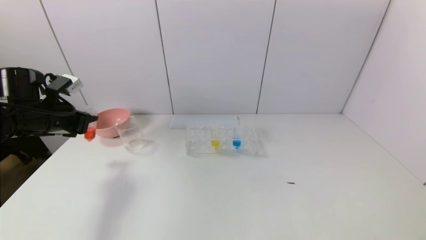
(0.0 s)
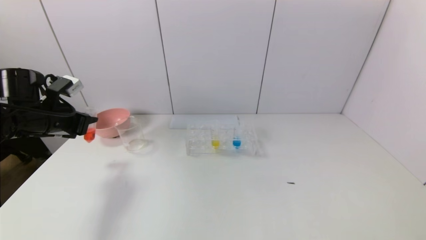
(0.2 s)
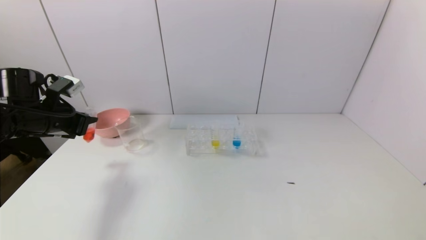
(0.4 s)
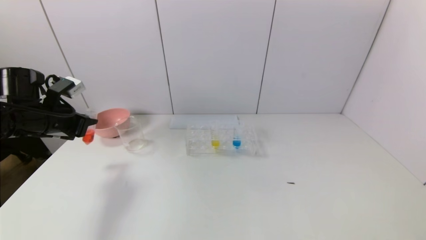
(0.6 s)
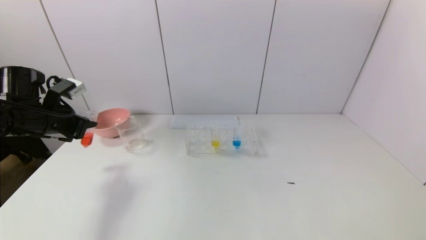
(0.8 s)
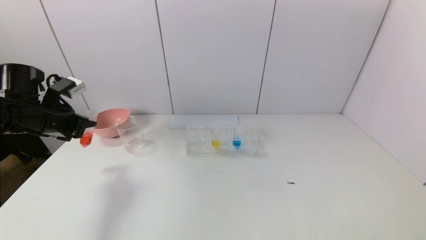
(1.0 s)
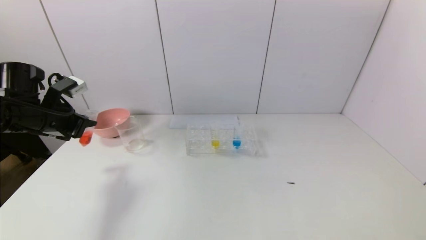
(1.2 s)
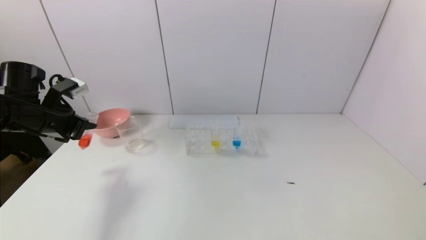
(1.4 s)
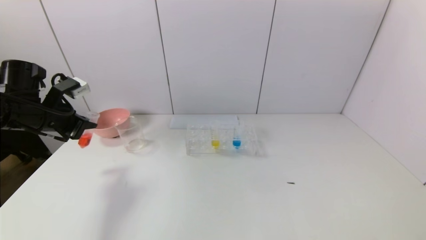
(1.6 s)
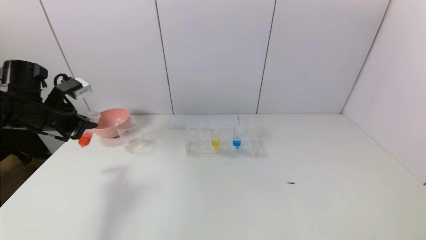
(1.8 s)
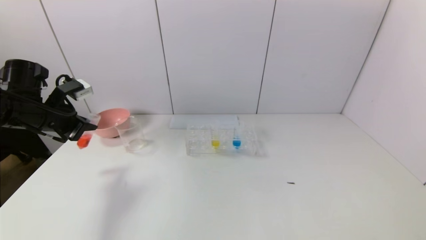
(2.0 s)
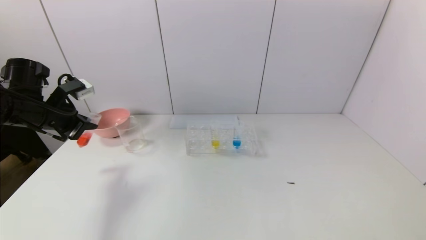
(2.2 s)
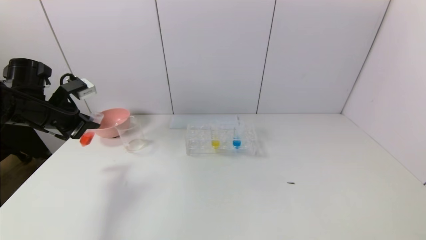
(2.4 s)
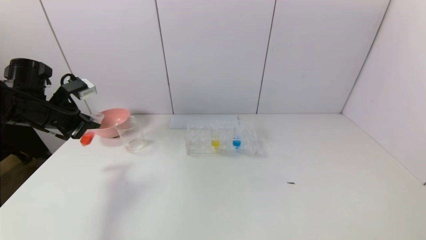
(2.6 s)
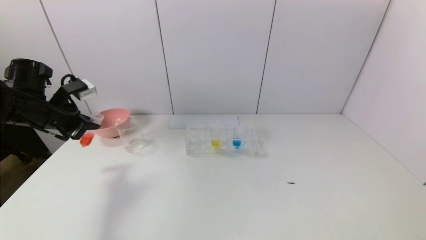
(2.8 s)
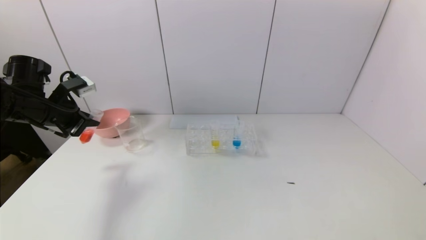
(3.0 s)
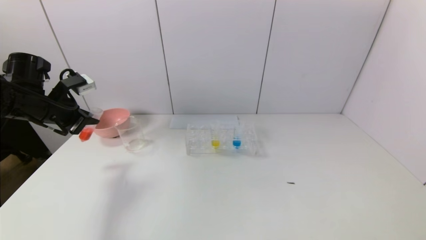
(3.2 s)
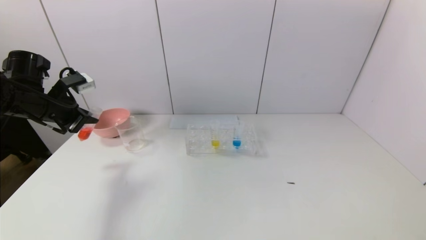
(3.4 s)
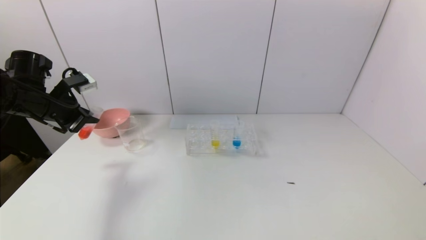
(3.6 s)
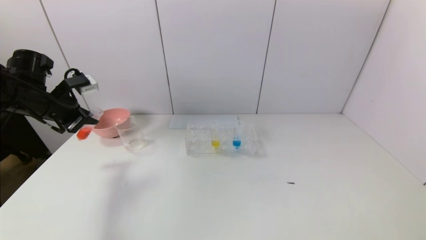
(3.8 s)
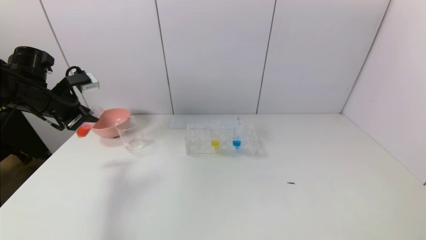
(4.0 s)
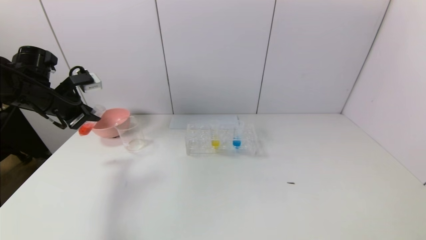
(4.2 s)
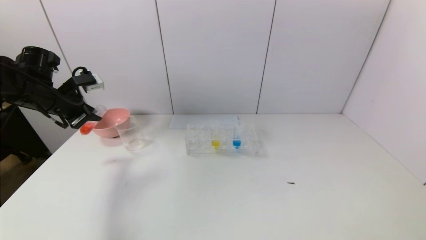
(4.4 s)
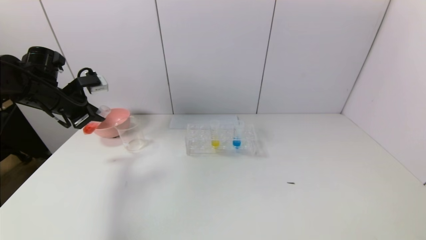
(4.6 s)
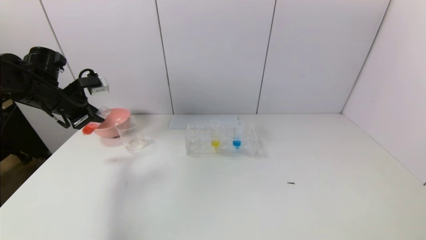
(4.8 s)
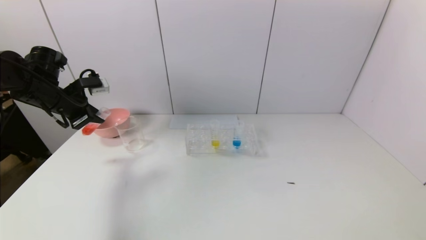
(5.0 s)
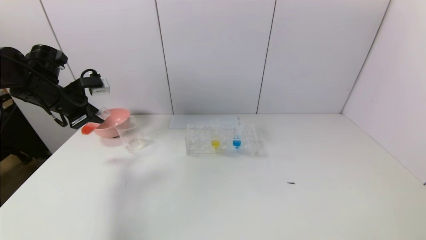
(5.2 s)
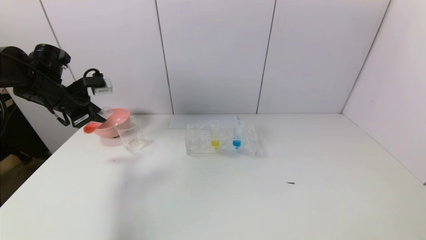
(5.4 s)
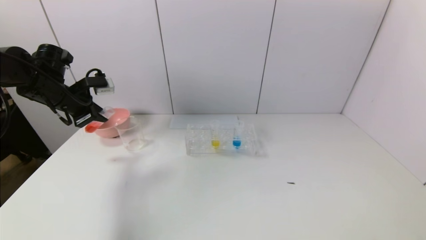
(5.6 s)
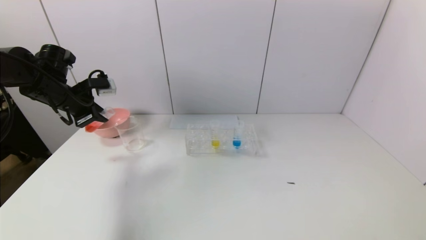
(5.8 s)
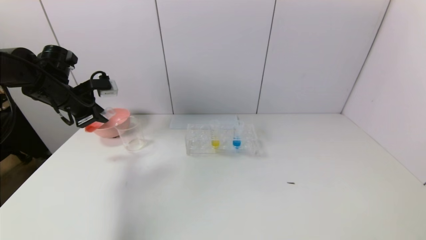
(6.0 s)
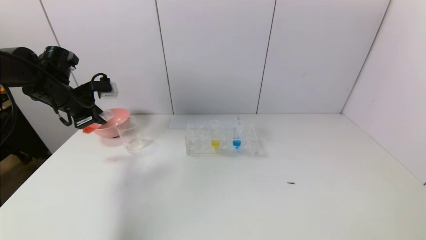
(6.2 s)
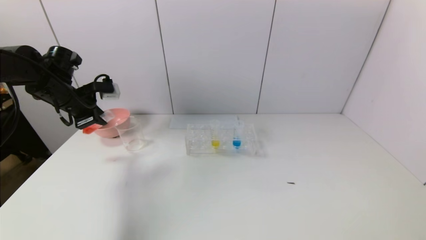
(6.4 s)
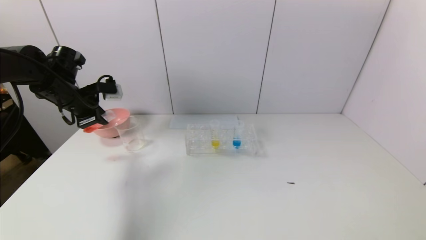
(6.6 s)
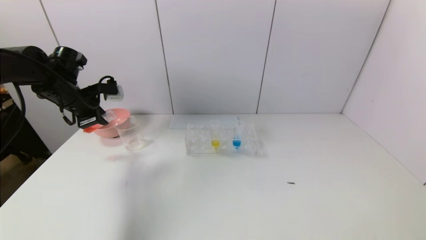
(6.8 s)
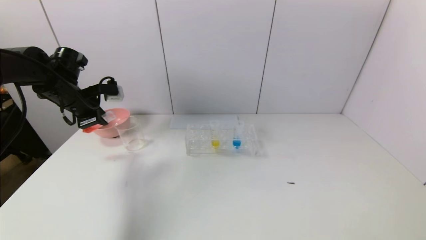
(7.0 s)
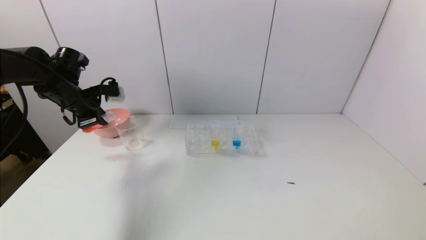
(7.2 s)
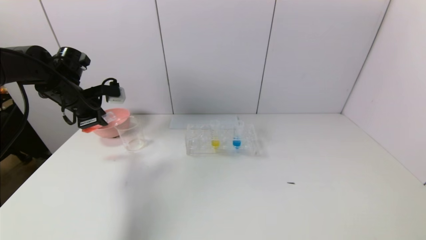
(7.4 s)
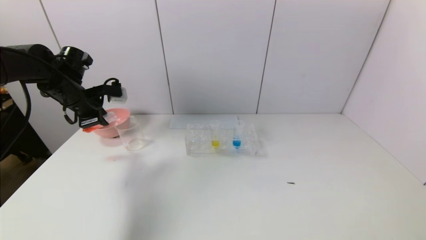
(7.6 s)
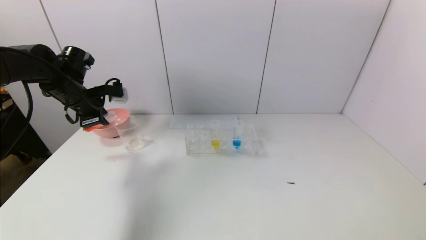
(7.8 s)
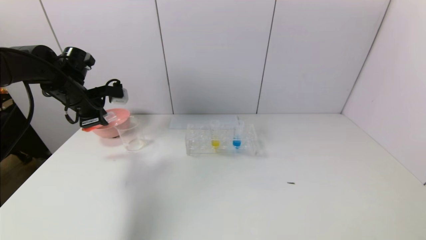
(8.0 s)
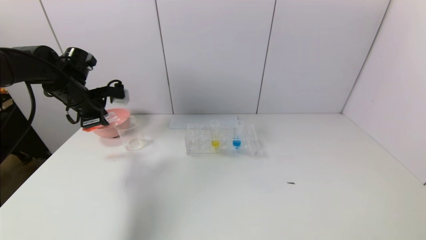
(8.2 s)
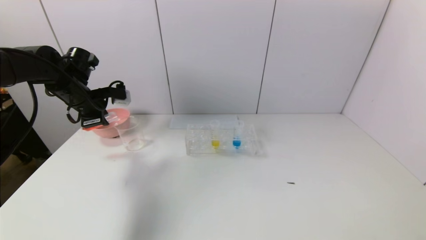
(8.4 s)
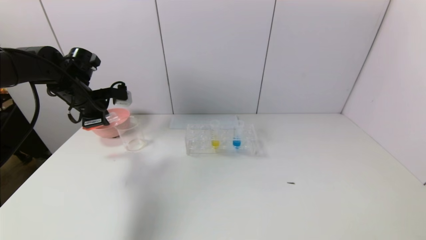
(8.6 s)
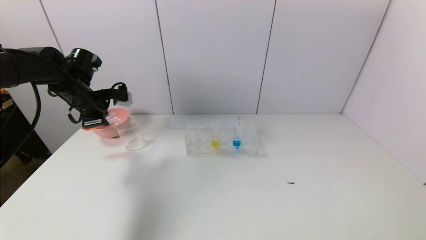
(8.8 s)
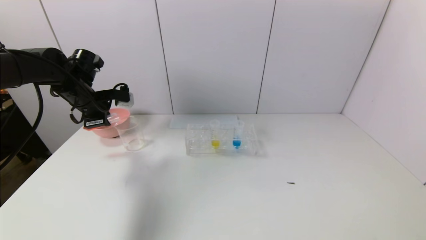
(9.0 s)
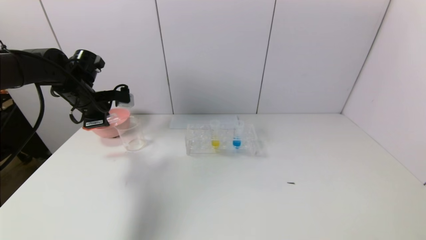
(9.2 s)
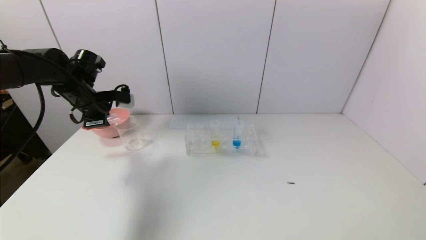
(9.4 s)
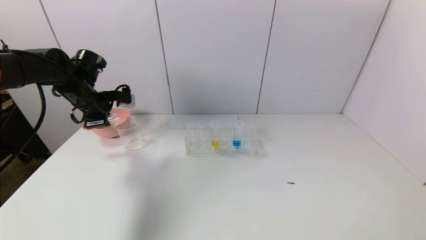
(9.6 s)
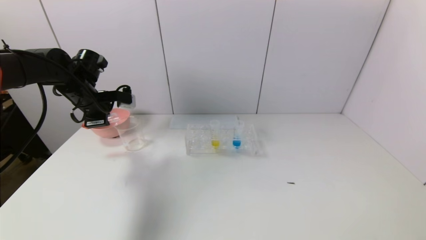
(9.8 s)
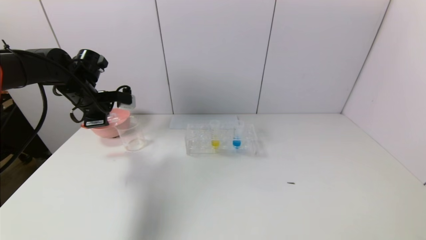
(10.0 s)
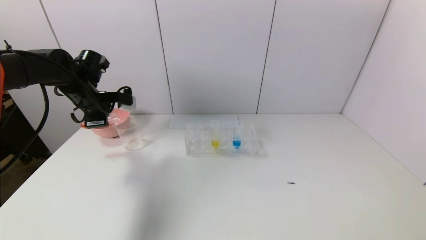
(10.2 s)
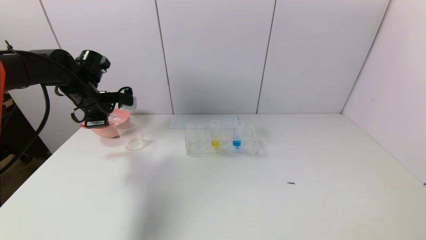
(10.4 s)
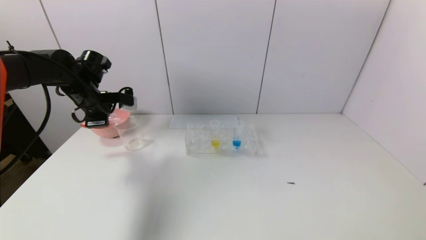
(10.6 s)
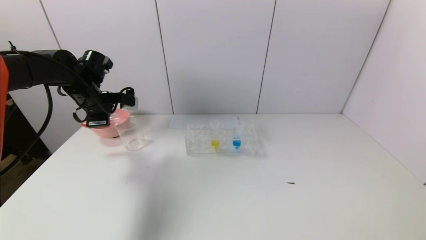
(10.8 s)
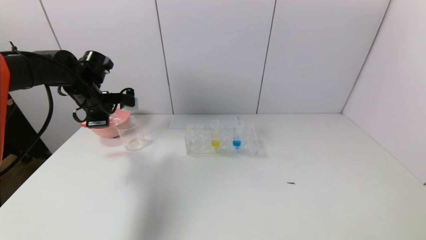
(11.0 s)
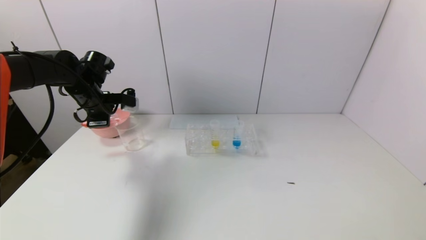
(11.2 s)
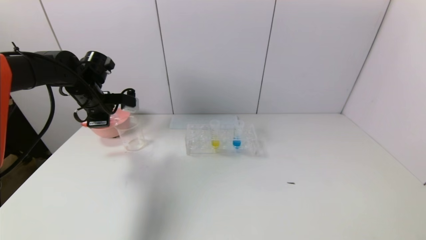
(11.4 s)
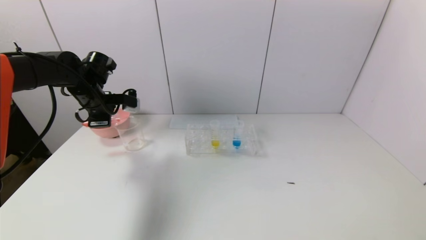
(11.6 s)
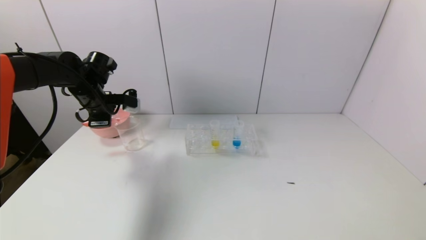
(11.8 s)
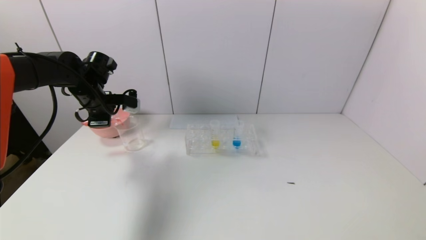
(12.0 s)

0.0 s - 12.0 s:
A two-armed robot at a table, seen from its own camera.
Task of the whole recording: pick up the test tube with yellow pigment and the test tube with red pigment by grippers and pour them into the beaker.
0.0 s - 1.6 s: The grippers move only a little.
1.6 s - 4.4 s: The grippers make only small movements.
4.4 s - 6.0 s: The grippers stay close to where they were, moving slightly.
6.0 s - 9.0 s: The grippers move only a little.
9.0 s - 10.4 s: The grippers stay close to where they were, moving slightly.
10.4 s - 12.0 s: The two grippers keep their place.

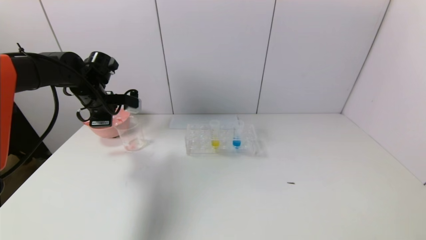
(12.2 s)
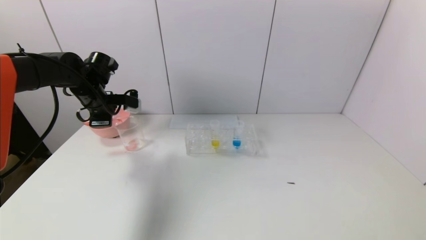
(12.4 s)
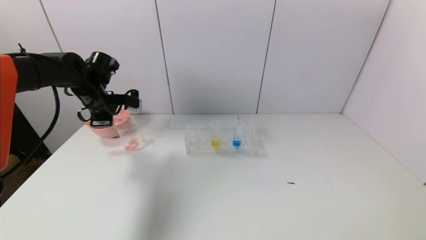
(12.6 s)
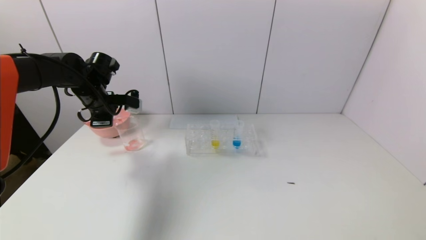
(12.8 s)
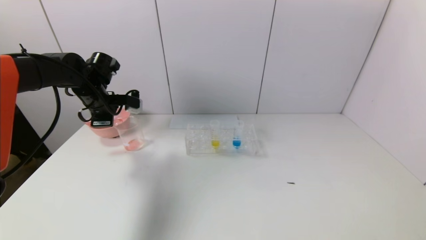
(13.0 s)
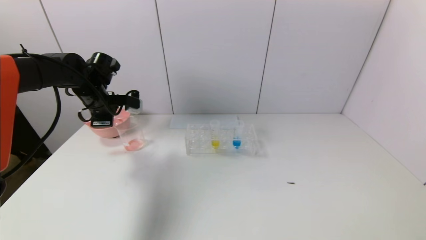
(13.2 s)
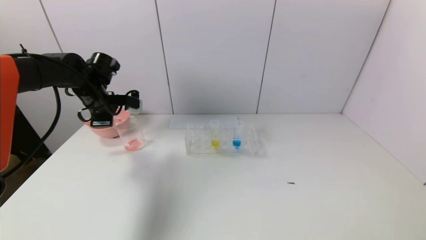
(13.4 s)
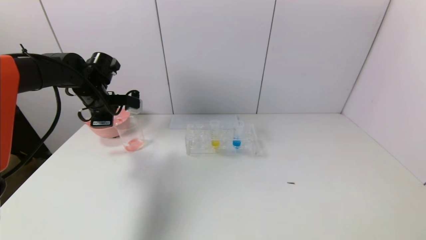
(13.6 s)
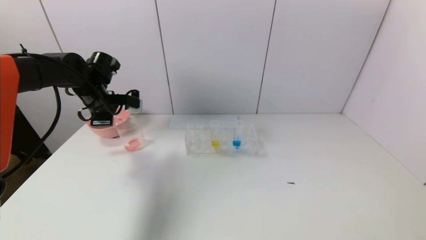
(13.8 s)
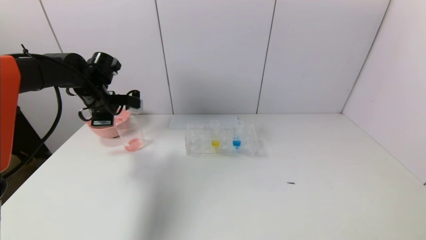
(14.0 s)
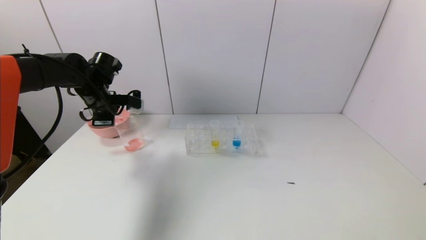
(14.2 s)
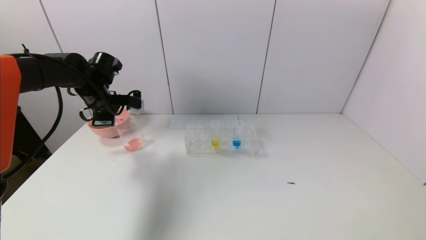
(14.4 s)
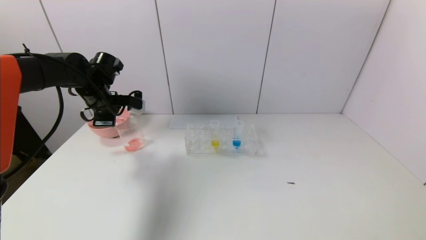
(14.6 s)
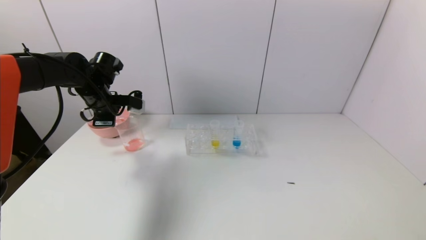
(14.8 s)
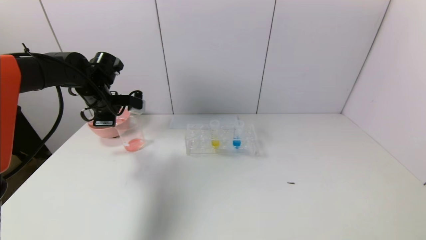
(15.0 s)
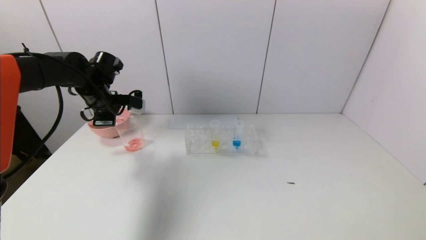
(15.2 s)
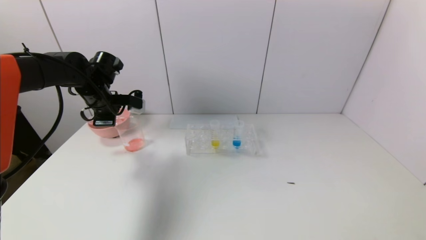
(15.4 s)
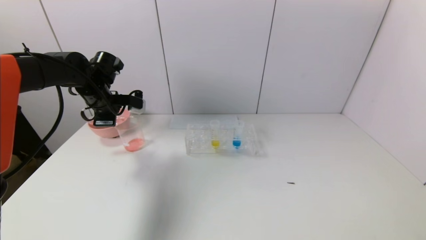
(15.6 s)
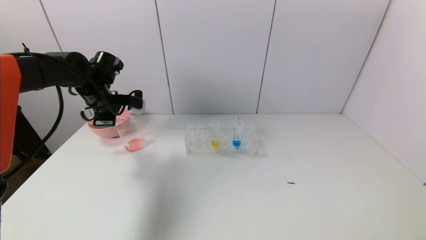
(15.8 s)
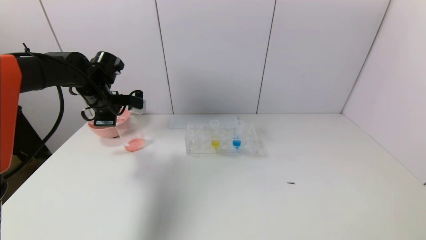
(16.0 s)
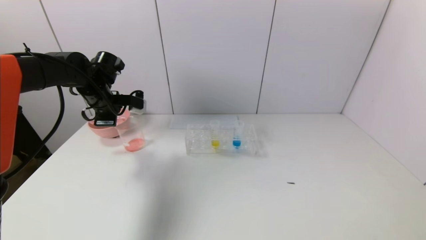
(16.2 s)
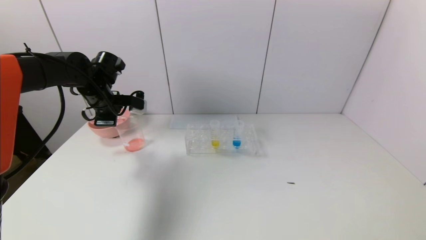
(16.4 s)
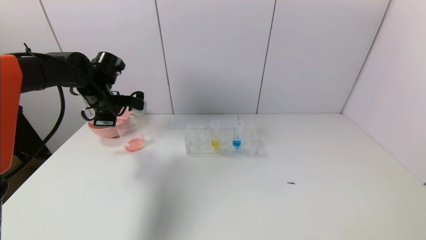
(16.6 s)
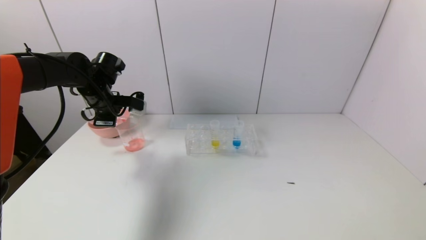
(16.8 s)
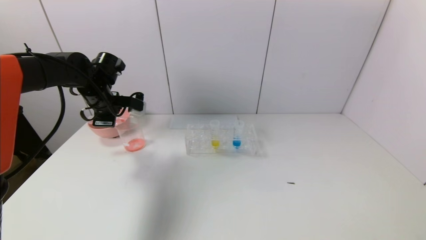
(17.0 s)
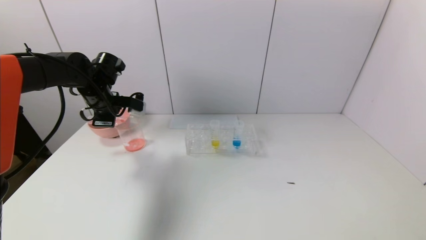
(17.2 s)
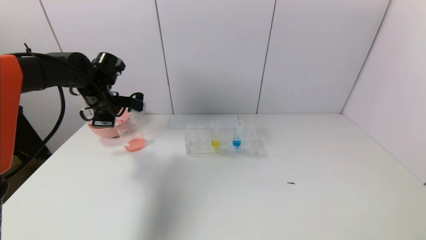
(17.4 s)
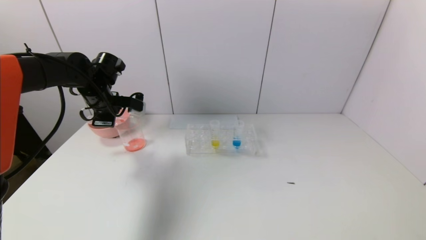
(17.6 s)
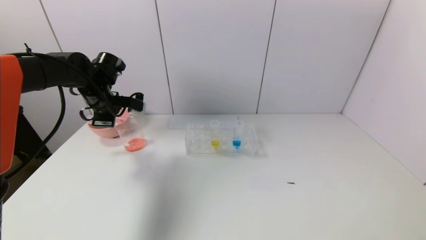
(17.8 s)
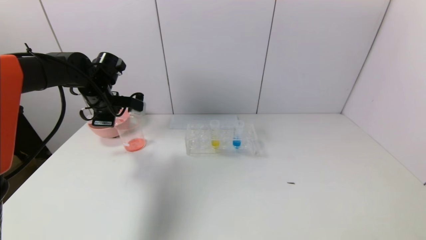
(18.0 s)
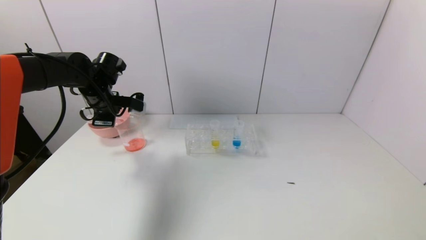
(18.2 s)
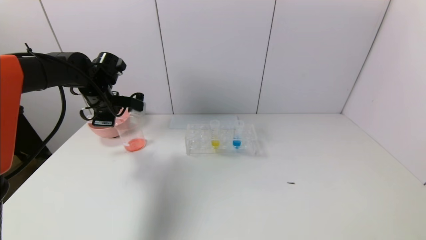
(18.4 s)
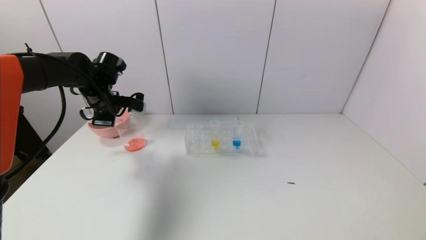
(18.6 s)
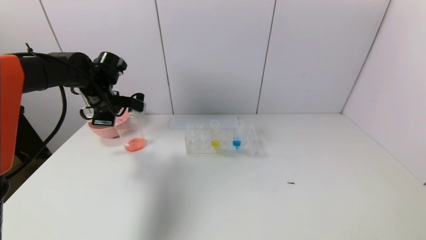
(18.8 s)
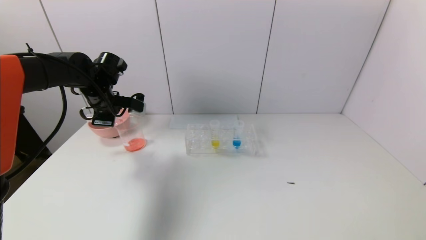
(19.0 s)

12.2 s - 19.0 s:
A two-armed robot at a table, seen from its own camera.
Task of the whole recording: pick up the test tube with yellow pigment and the test tube with red pigment by grippers and pour them into the beaker.
12.2 s - 16.2 s: Both grippers stay about where they are.
16.2 s - 17.6 s: Both grippers stay put.
17.6 s - 19.0 s: Both grippers stay about where they are.
